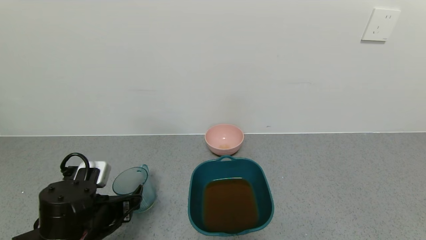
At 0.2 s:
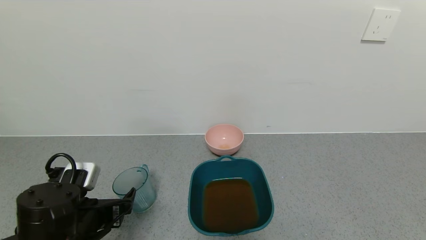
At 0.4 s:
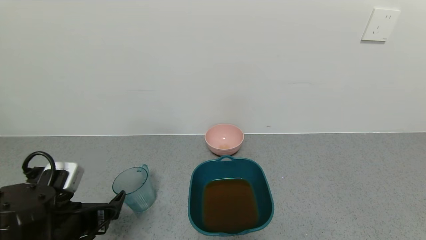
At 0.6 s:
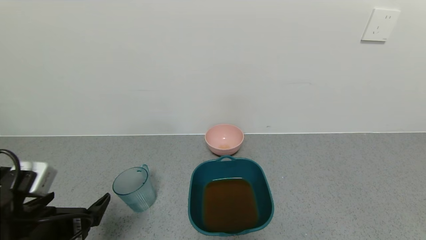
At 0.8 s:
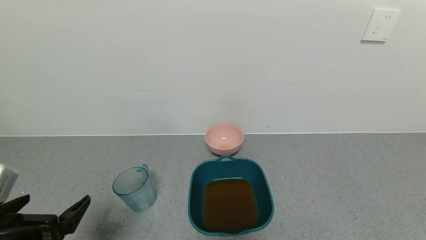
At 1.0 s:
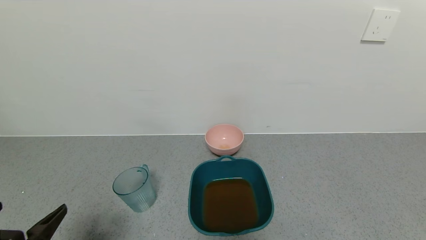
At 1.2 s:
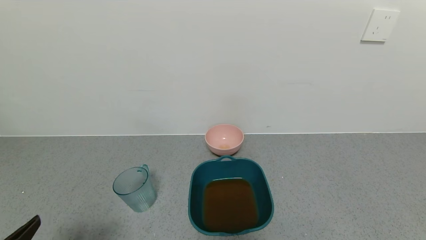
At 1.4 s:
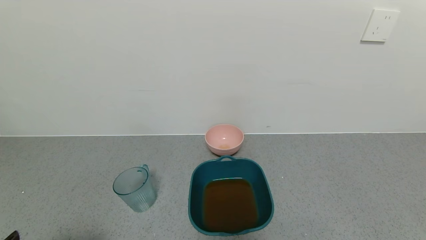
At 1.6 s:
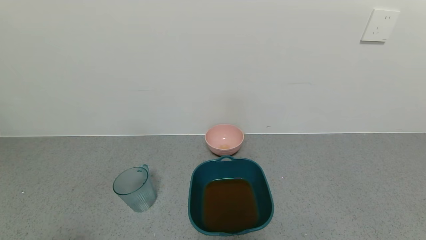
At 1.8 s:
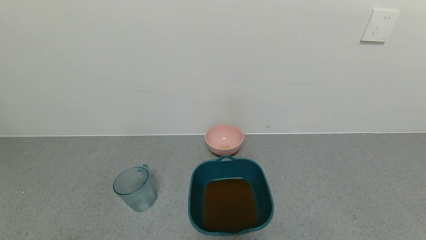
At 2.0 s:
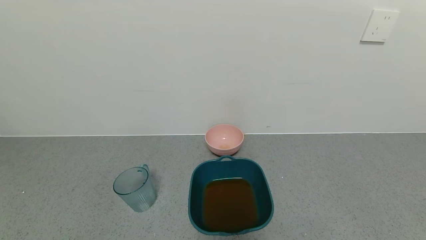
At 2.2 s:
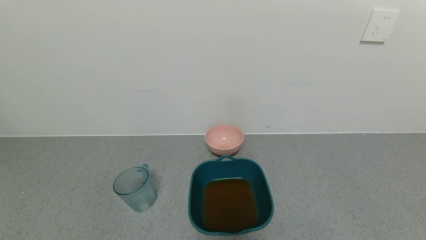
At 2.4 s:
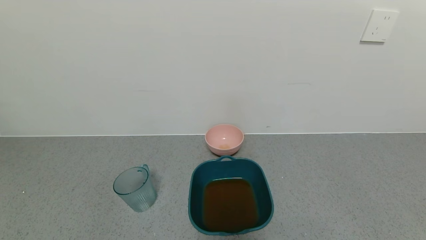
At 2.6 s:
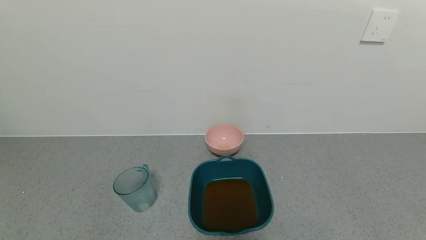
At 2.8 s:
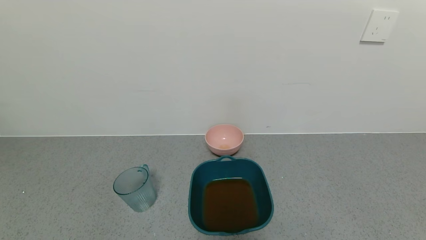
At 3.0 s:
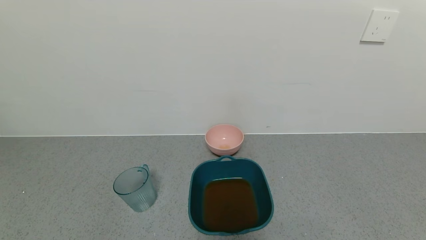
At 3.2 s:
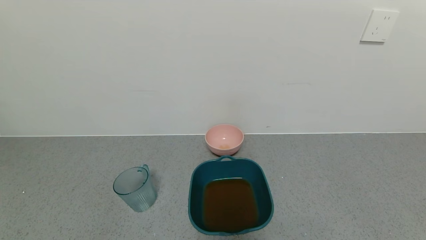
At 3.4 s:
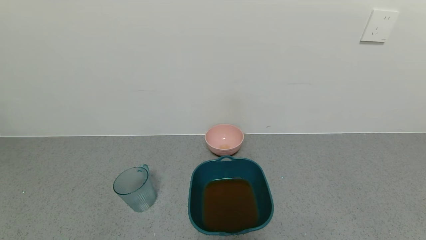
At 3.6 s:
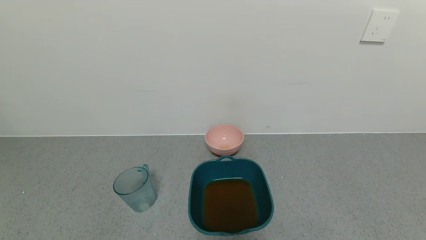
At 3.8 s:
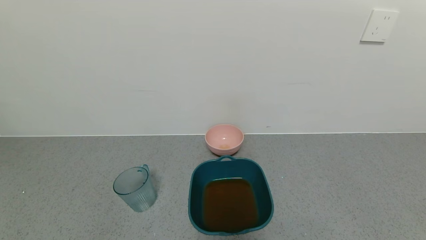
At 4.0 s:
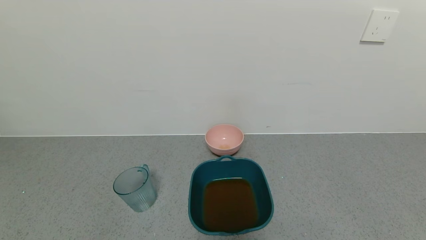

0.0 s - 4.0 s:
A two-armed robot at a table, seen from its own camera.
Task of the whole recording: use a gripper to pick up the cup and pour the liquid into a bowl or tray.
0.0 s - 1.4 s: The left gripper shifts approximately 20 cm backward, to the left and upward.
